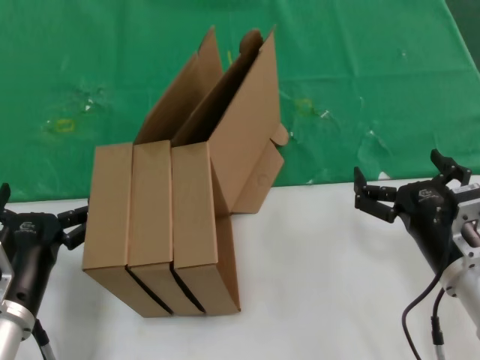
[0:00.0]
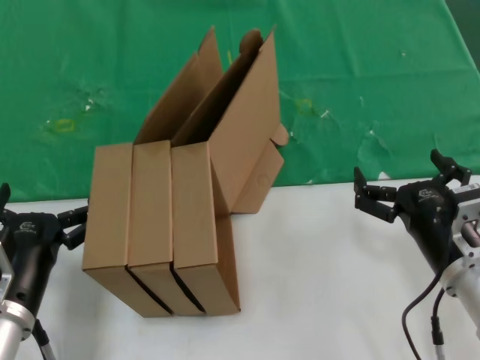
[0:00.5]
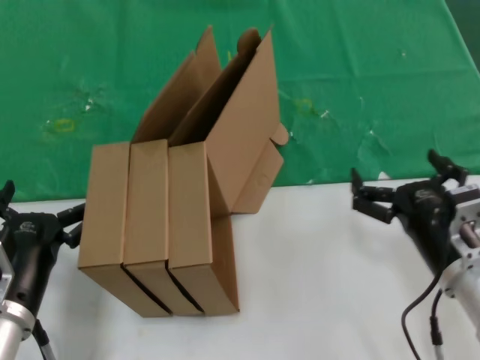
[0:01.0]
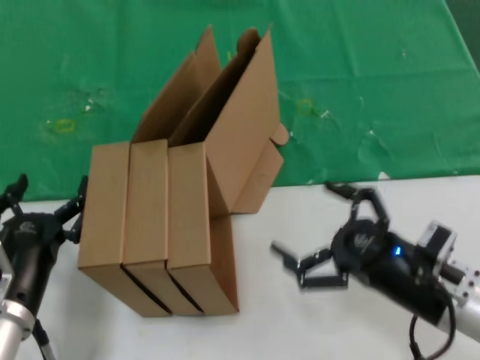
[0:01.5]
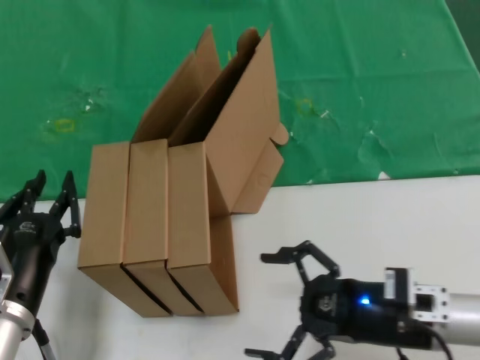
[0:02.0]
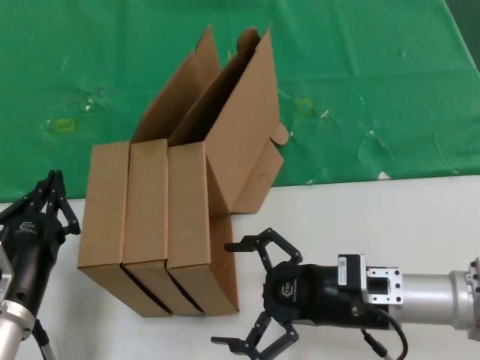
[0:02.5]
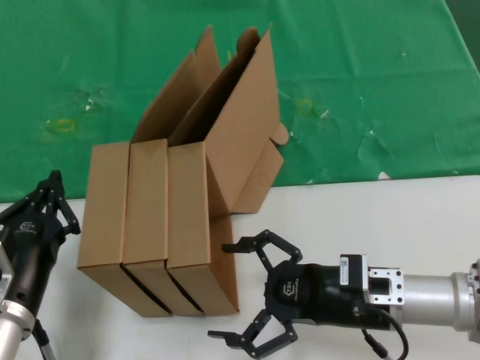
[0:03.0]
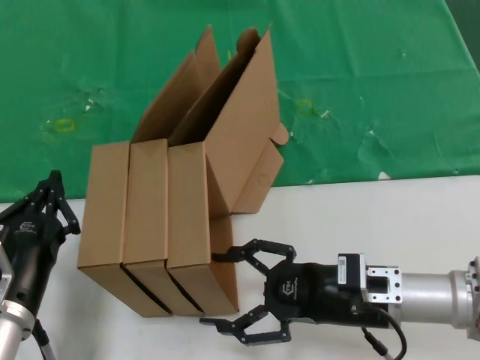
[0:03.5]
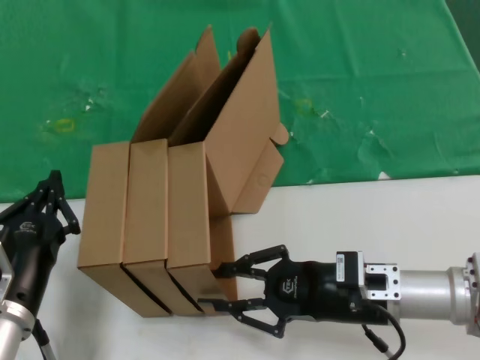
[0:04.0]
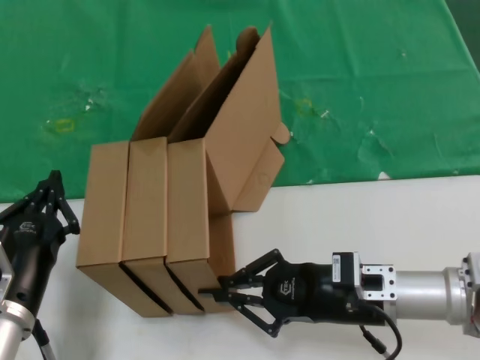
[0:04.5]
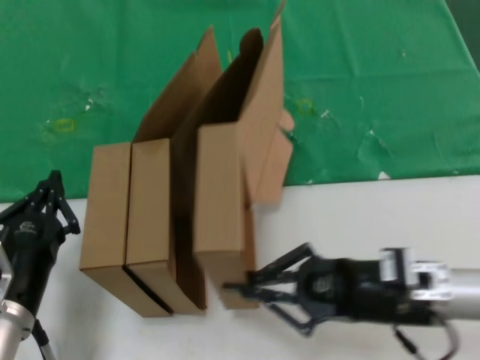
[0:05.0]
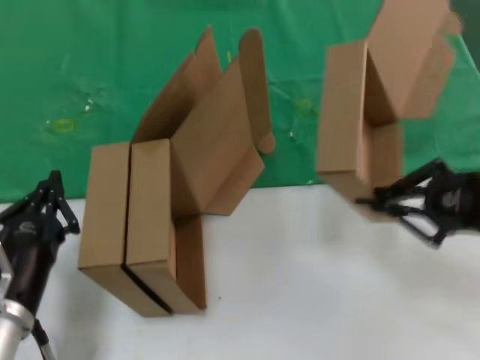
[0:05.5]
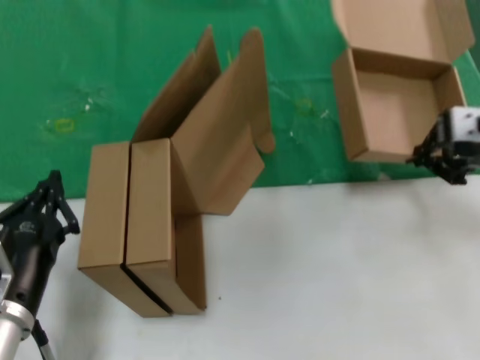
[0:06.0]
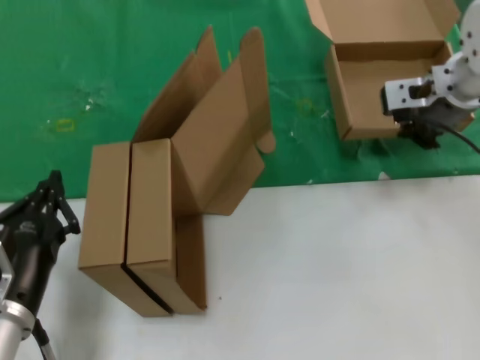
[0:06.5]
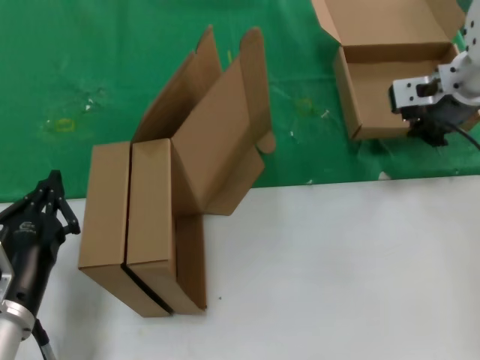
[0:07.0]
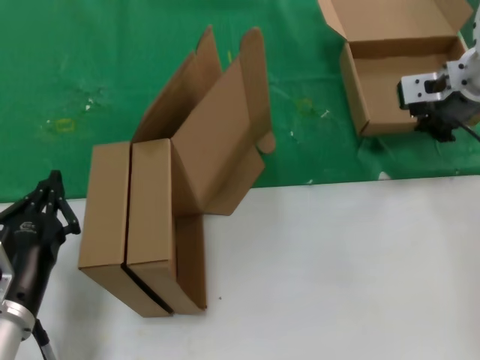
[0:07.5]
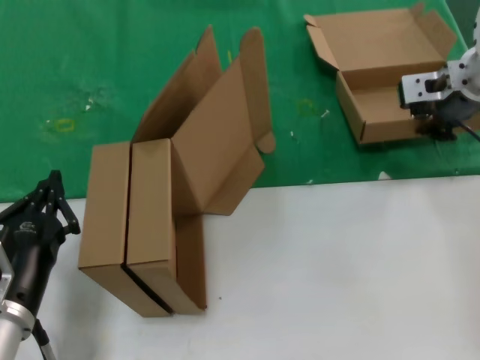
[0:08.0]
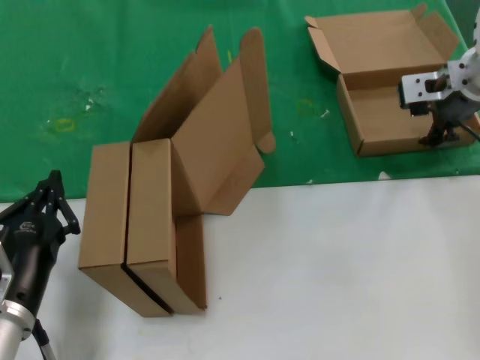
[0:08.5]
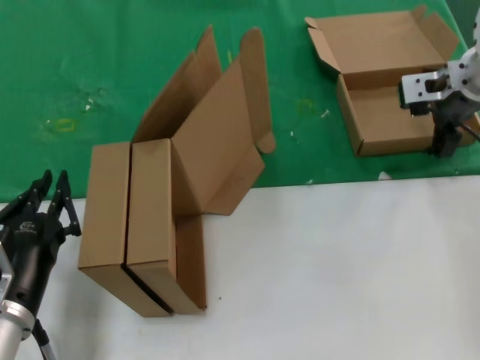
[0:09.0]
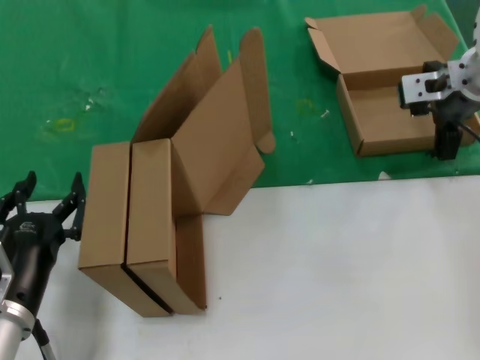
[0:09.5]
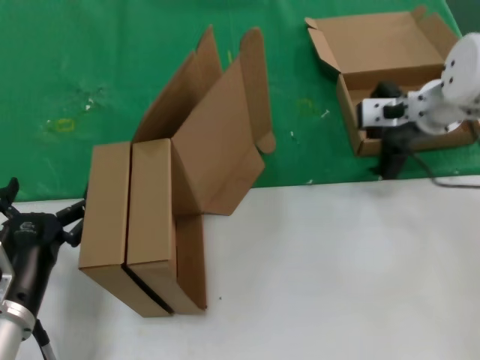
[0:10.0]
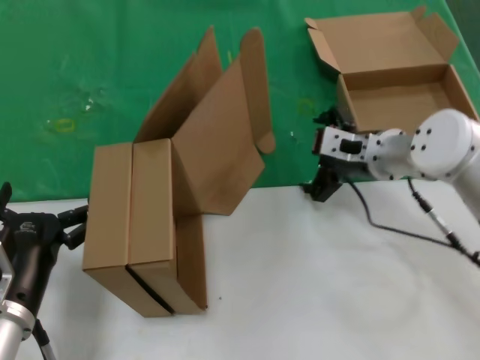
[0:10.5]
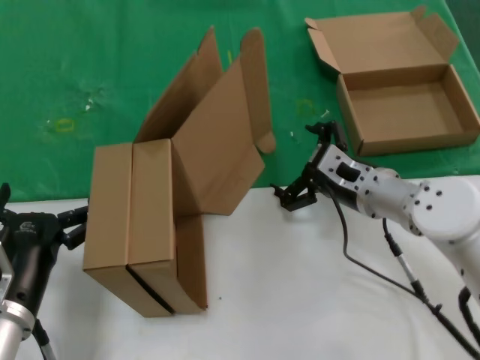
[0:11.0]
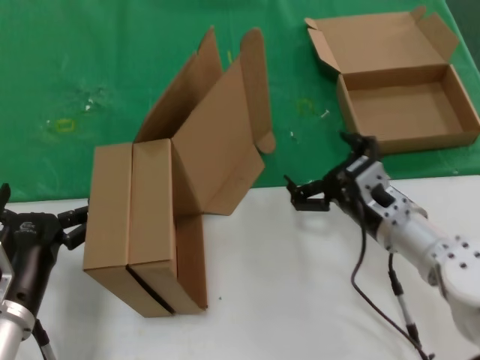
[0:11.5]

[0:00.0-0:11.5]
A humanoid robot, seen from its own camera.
Task of the whole recording: pick up the paper box and put it at the back.
Step, 0:00.0 to 0:04.5: Grasp the paper box.
Step, 0:05.0 to 0:08.5: Place the paper box on the table.
0:02.0 to 0:04.0: The right hand changes place by roughly 5 cm.
0:04.0 to 0:06.0: The right hand moves upward and to the right, about 25 cm.
0:06.0 to 0:07.5: The right hand moves forward, some 15 cm.
0:07.5 to 0:09.5: The two hands keep their place.
0:09.5 to 0:11.5: The right hand goes about 25 cm downward and backward.

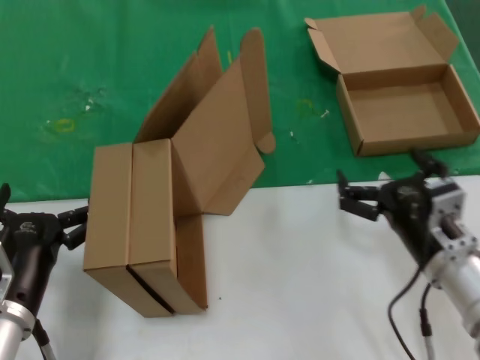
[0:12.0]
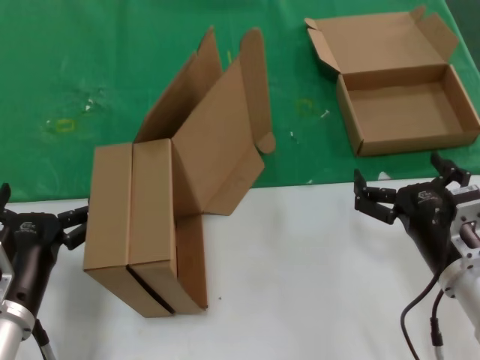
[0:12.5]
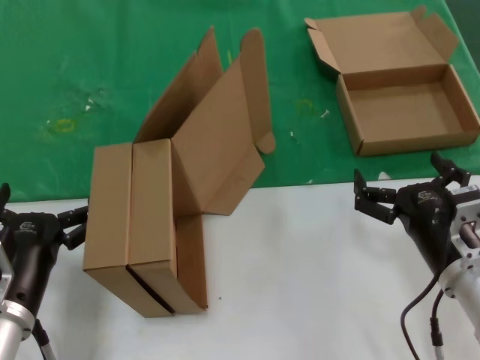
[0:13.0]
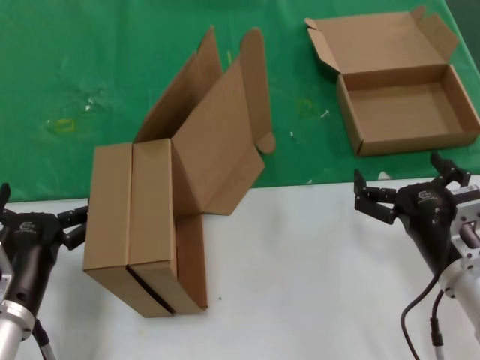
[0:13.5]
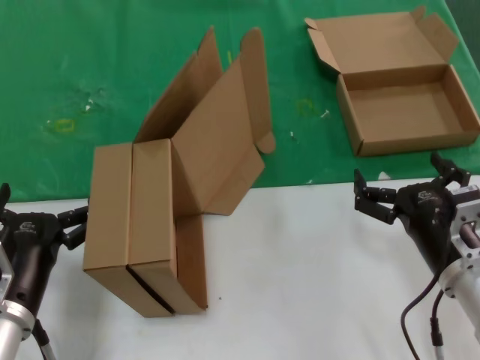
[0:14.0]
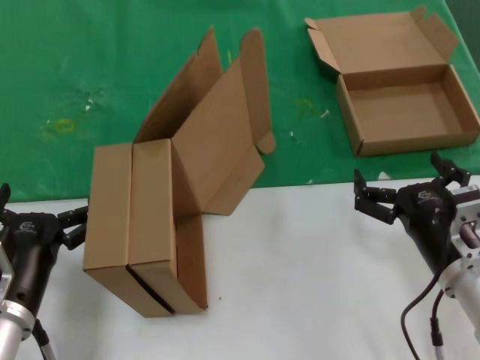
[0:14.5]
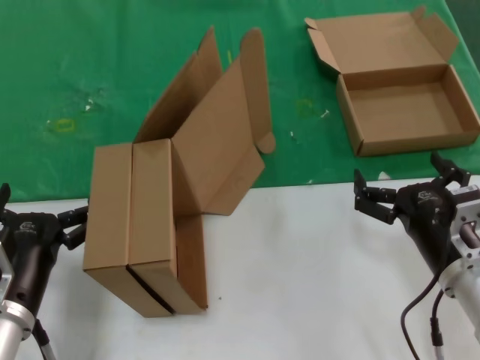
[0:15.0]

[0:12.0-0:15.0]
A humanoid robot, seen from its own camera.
Task of the whole recording: pick up the paper box and put it at the back.
0:12.0 to 0:13.5: There are only small adjustments of the hands.
0:13.5 to 0:15.0: The two hands keep their place.
